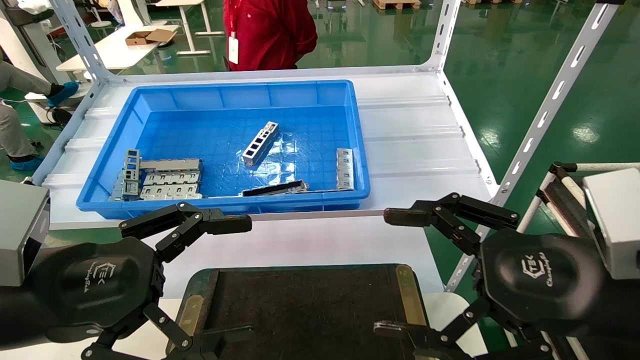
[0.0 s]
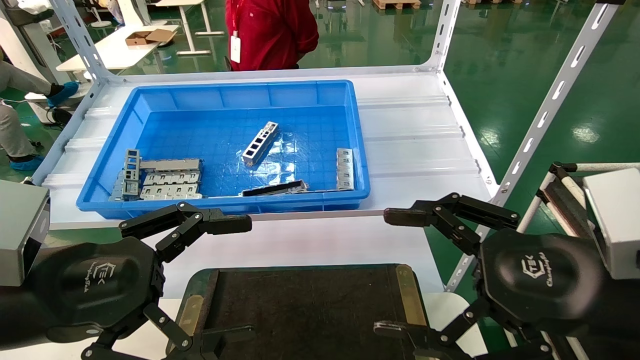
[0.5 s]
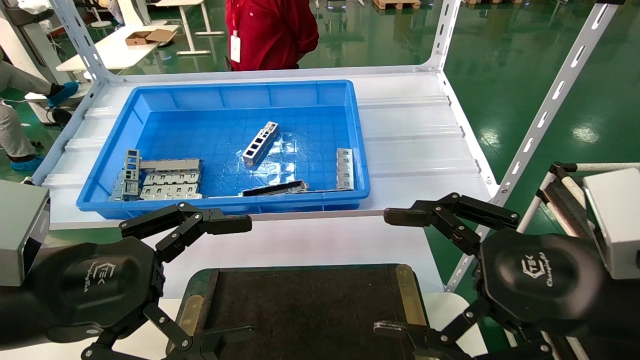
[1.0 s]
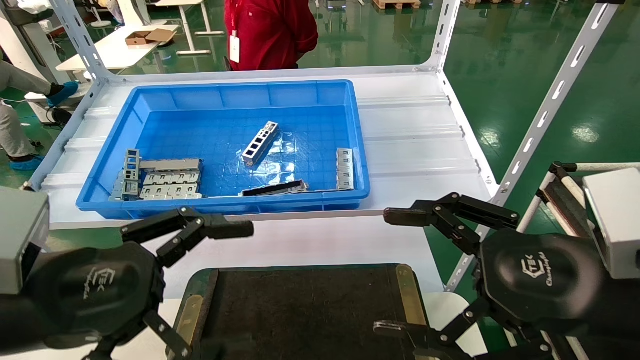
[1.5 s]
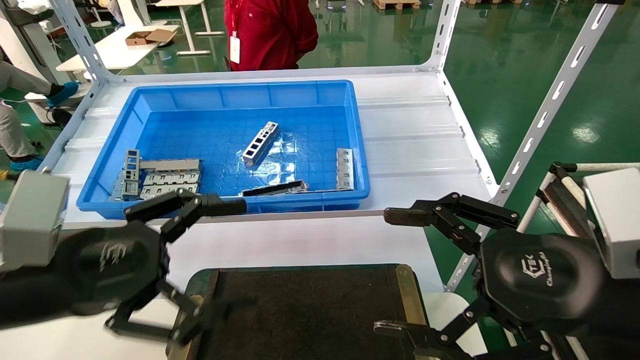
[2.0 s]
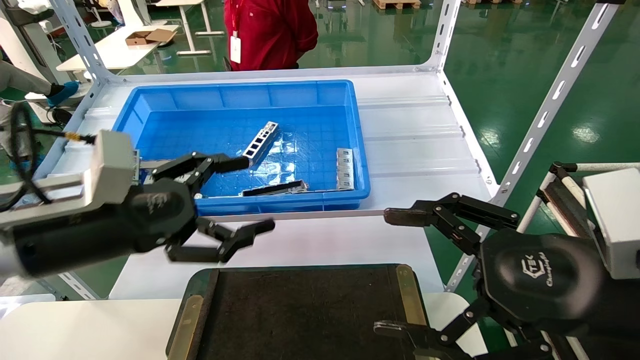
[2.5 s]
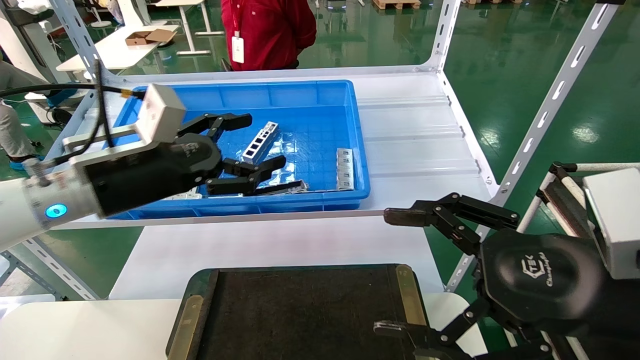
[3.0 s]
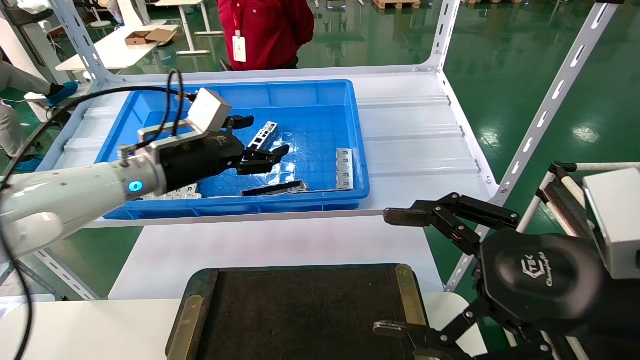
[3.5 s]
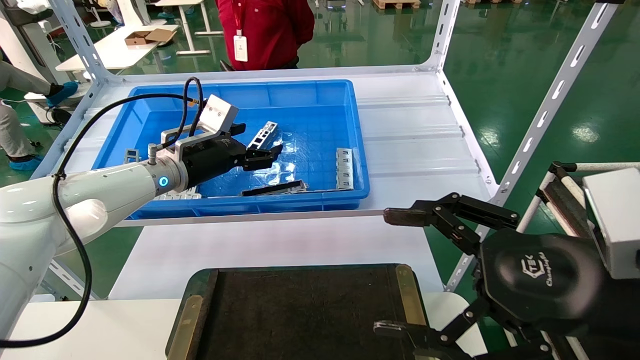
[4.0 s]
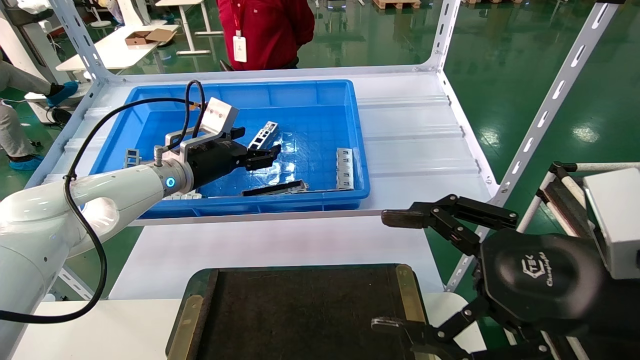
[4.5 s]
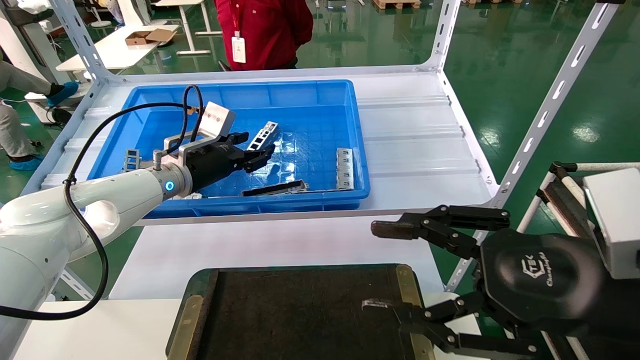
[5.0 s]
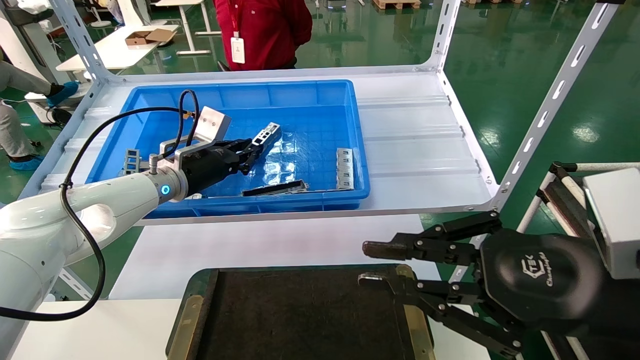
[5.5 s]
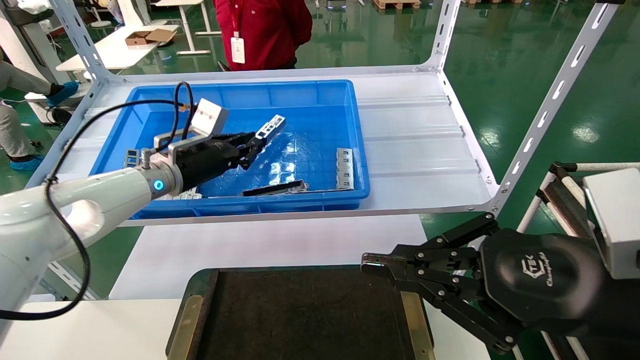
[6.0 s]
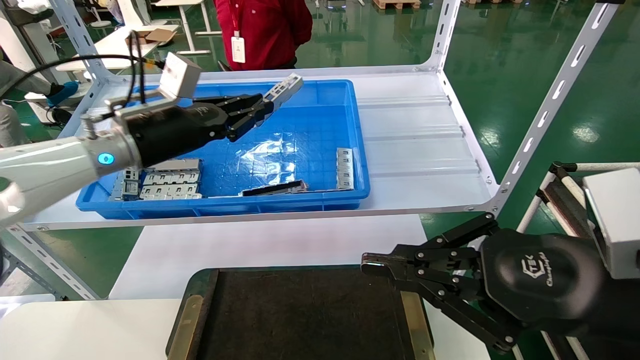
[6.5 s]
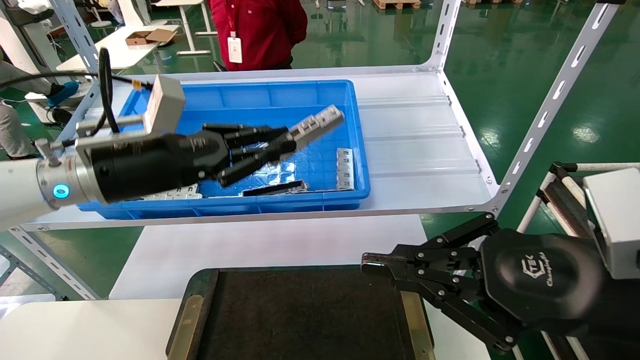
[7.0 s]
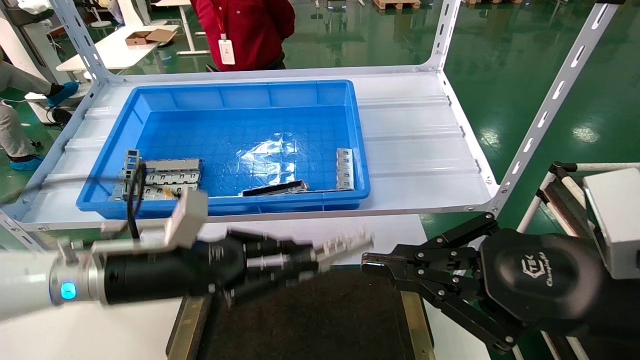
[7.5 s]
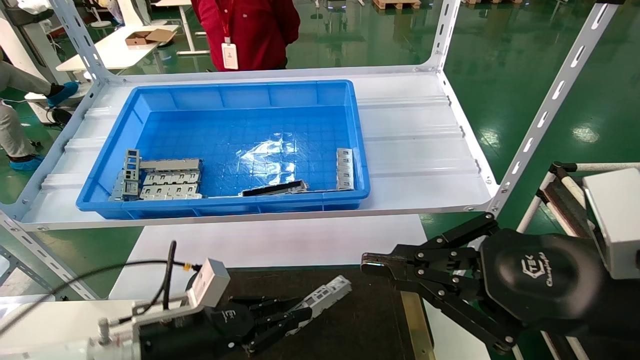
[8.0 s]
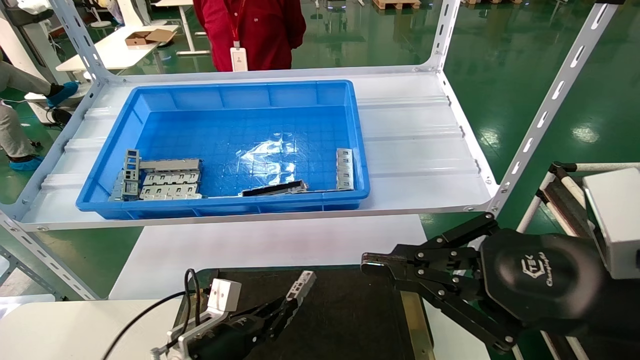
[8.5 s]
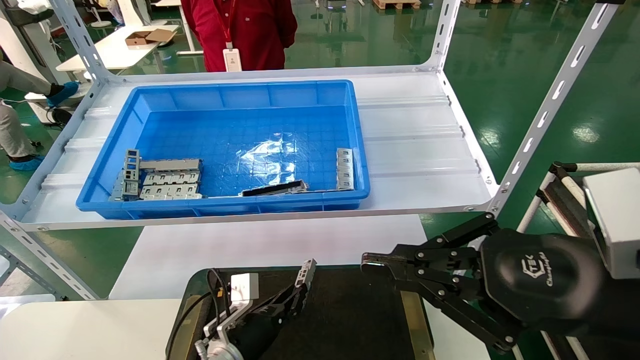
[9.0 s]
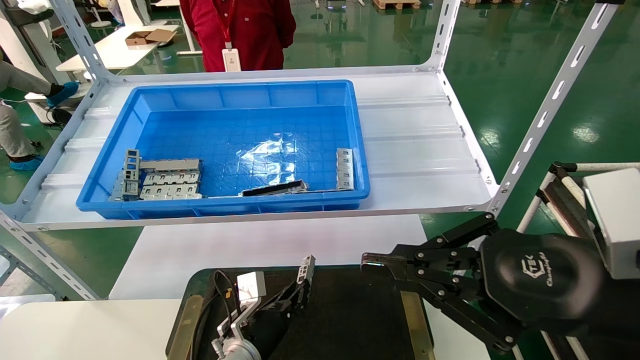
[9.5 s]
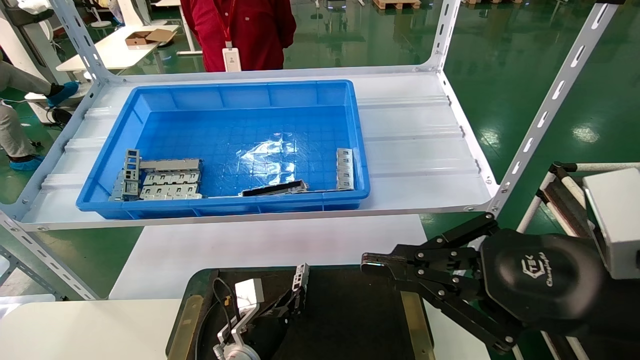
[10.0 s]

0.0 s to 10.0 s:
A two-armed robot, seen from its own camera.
Task of the whole recording: Grasp the part with one hand and place it on the black container.
Step, 2.0 to 6.0 s: Pick up the front USB bracket from the feeding area.
0.0 to 2.0 s: The grippers move only a little.
2.0 to 4.0 s: The left gripper travels forward by roughly 25 cm.
4.0 to 6.0 s: The right gripper closes up. The left gripper closes up.
6.0 to 8.0 s: The left gripper goes approximately 25 cm downward and backward.
8.0 to 10.0 s: The left gripper heads downward, to the right and forward, covering some 20 cm.

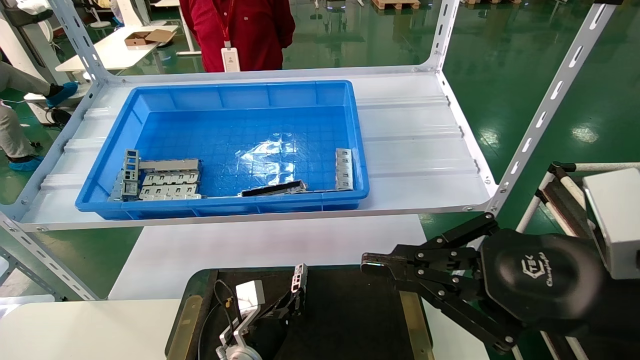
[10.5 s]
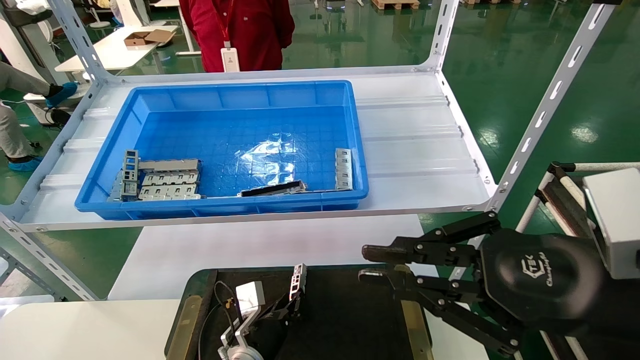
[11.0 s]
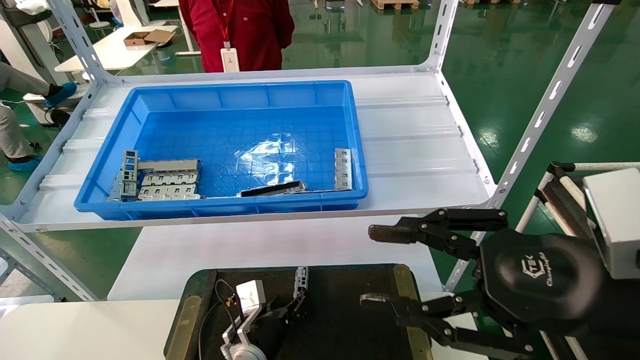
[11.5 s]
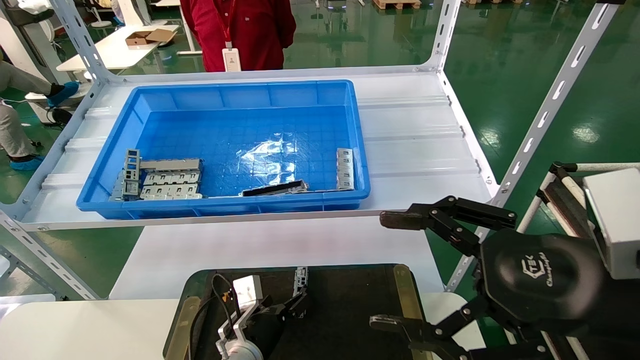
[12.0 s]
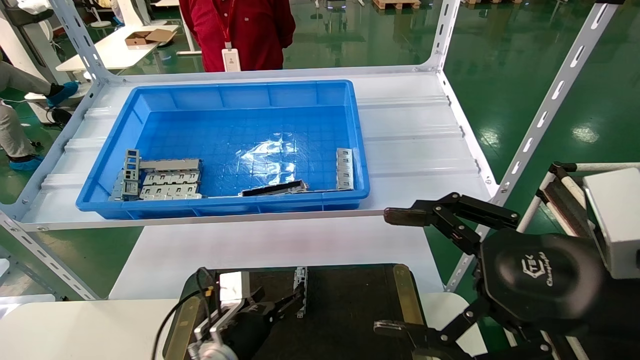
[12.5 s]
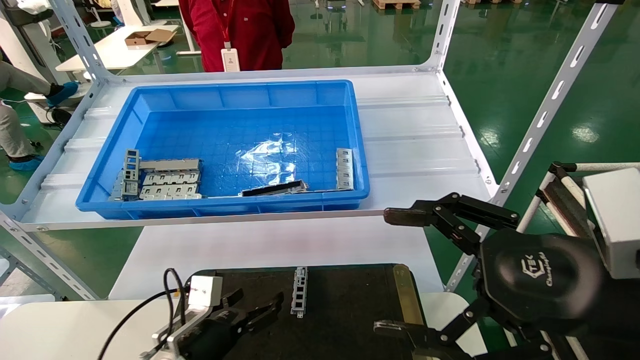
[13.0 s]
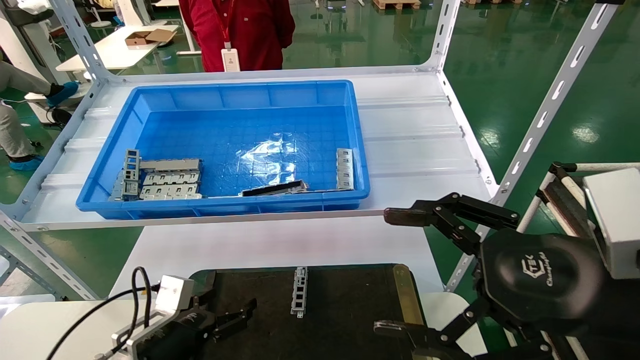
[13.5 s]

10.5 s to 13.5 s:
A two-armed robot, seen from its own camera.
Task of the whole recording: Grasp the part with one hand and place it on the black container.
10.5 to 12.0 s: The right gripper opens up, while the left gripper opens its fingers.
12.0 to 13.5 s: The left gripper is displaced to the left and backward by roughly 15 cm.
